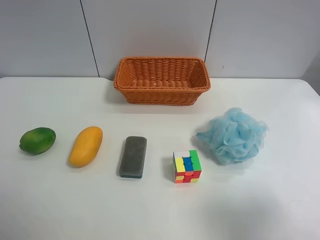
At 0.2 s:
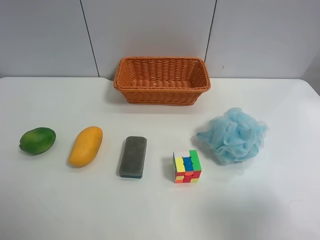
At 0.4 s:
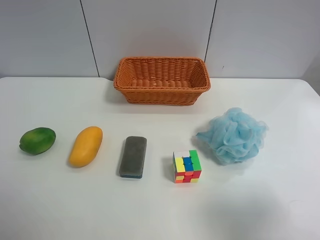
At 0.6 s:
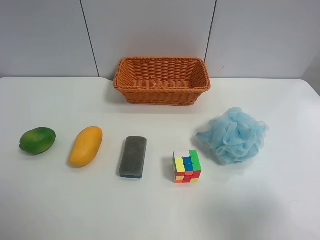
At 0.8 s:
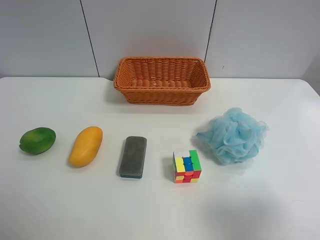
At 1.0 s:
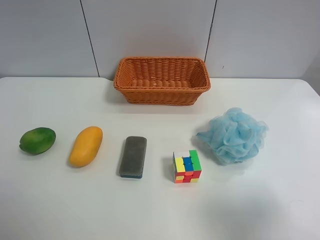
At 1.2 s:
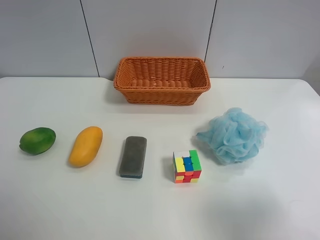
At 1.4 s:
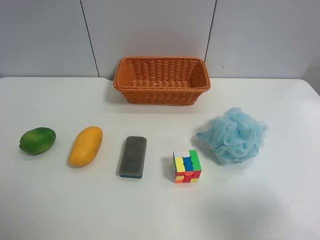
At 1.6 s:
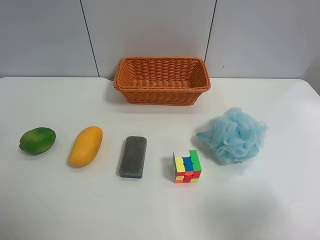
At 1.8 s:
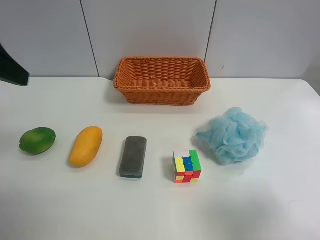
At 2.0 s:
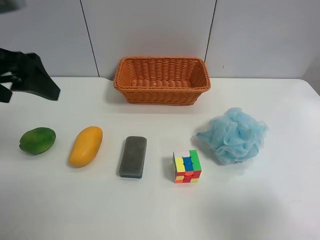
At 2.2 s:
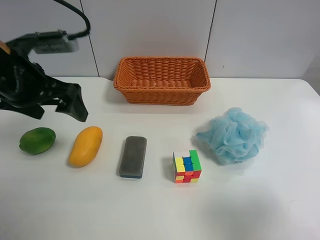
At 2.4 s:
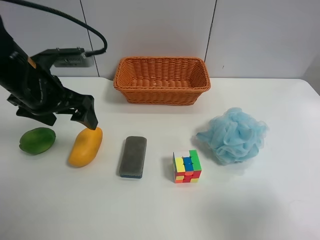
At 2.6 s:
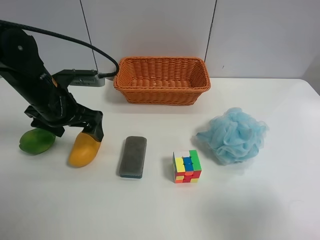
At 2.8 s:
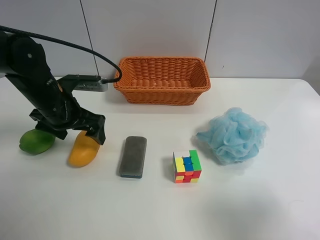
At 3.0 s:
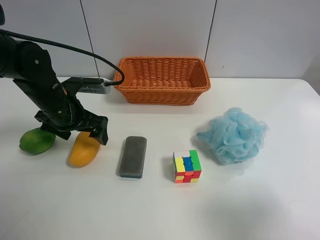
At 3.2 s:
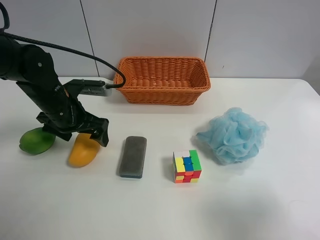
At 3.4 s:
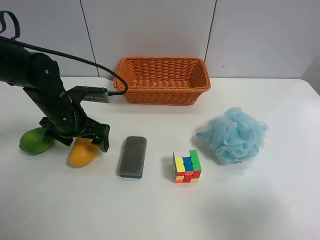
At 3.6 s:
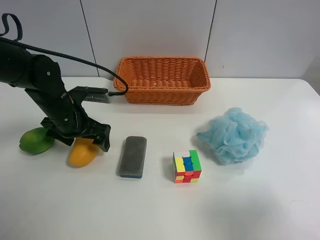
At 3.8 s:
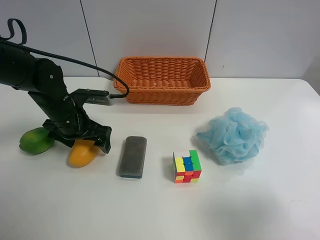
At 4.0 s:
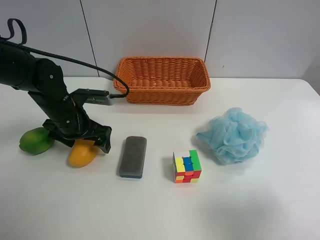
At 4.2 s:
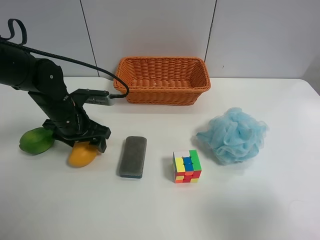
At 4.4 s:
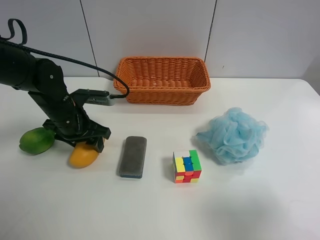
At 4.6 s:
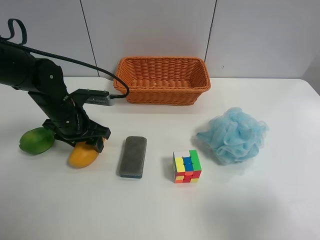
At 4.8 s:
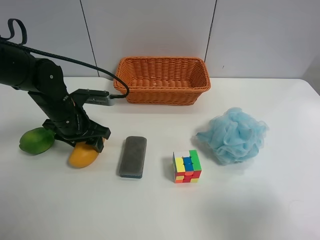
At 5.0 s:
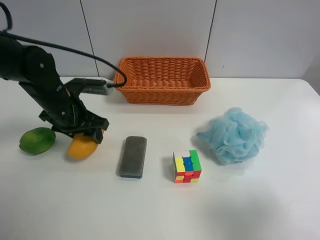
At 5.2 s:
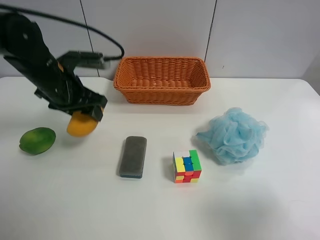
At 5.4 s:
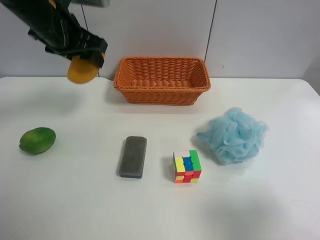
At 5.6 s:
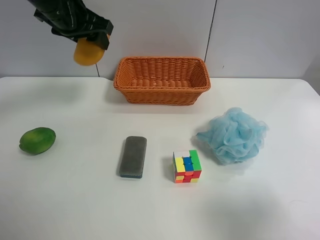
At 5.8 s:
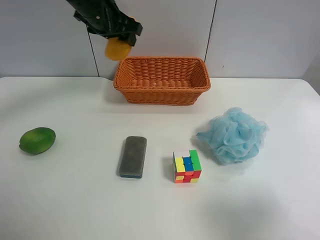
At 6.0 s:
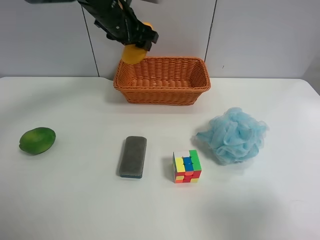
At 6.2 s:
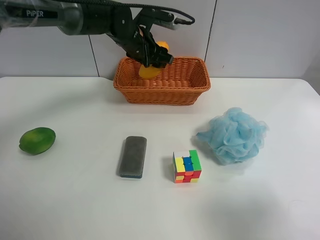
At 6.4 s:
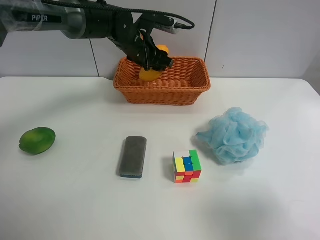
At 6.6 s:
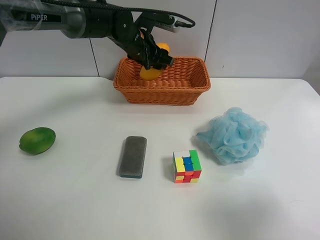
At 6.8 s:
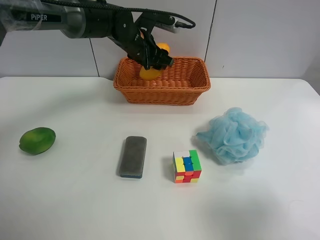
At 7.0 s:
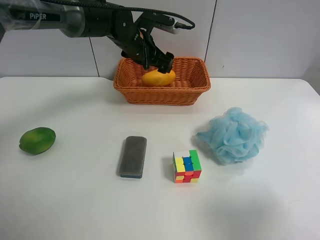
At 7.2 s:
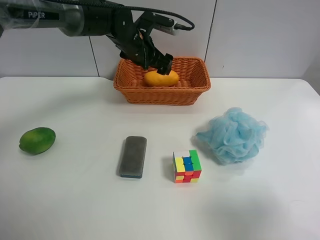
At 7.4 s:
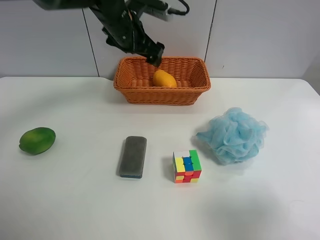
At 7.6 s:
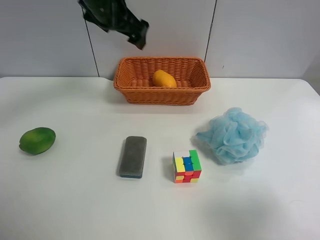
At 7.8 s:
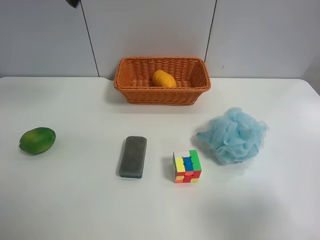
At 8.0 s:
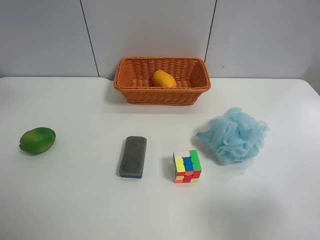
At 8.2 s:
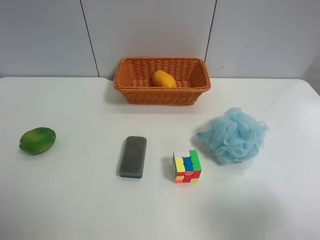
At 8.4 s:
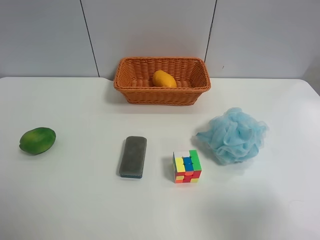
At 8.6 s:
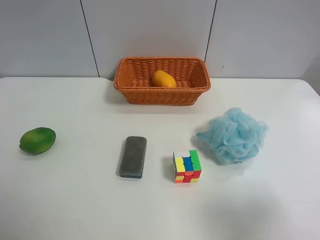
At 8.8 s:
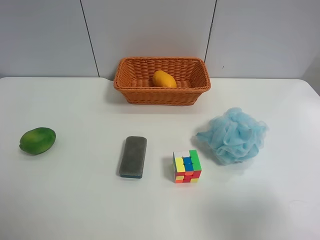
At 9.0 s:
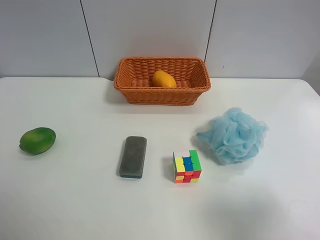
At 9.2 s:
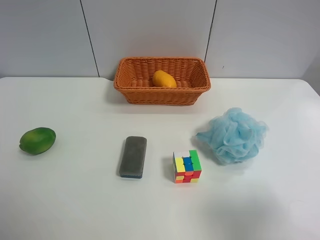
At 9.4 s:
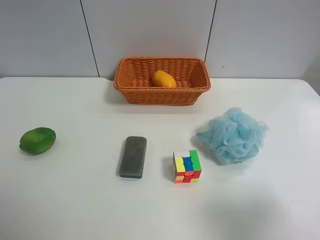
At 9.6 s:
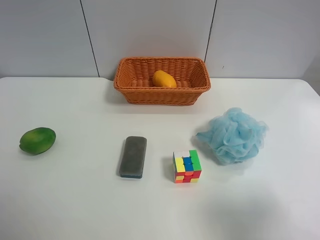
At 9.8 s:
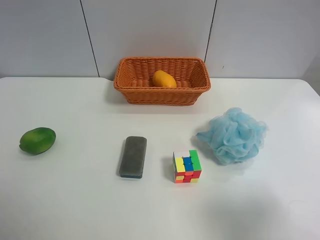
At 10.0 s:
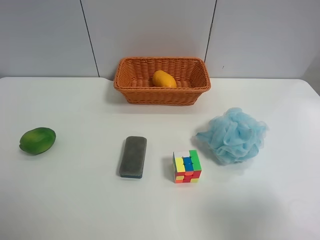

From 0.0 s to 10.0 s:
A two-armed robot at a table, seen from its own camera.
Task of the whole recording: Randomly grab green lemon or mangoes from the table and put them in a basket.
Step, from 0.0 s to 4.8 s: Grasp the mango with the left gripper.
Step, from 5.0 s to 7.4 s: Place the mango into the basket with the left gripper.
From 1.4 s to 2.8 s: The left gripper travels downward, forward and to the right by about 30 cm.
From 2.8 s to 4.2 s: The left gripper closes its fingers.
From 4.2 s to 5.8 s: The left gripper travels upward, forward and to the right by approximately 20 cm.
From 5.8 s to 7.2 s: The left gripper moves downward and to the right, some 10 cm, and opens its fingers.
From 7.2 s to 8.6 s: The left gripper moves backward, to the left and upward, about 60 cm.
